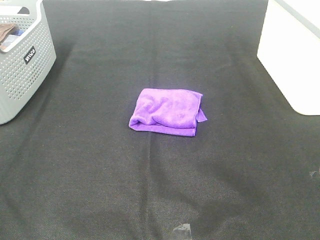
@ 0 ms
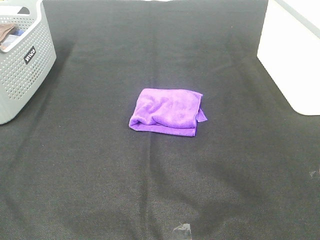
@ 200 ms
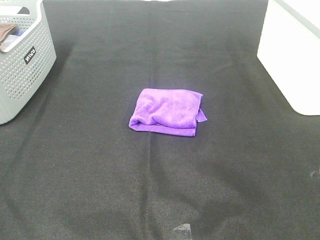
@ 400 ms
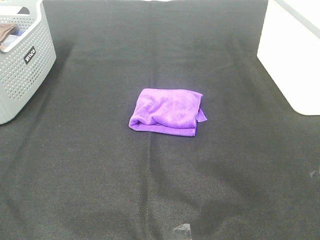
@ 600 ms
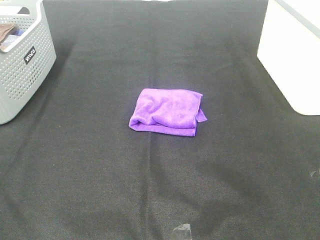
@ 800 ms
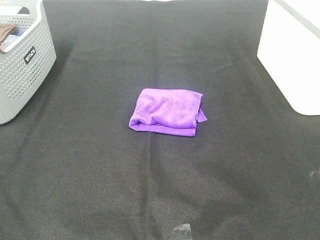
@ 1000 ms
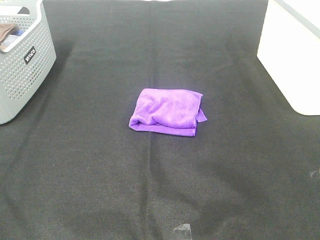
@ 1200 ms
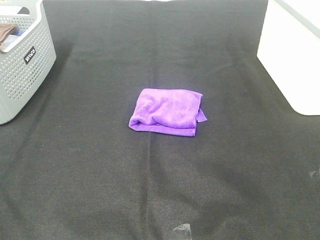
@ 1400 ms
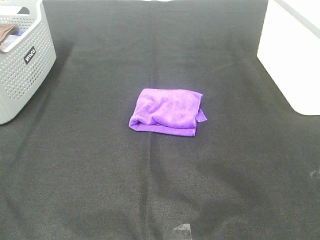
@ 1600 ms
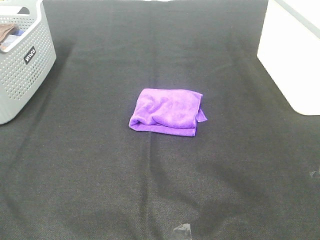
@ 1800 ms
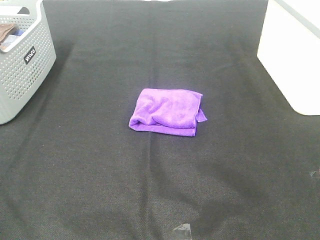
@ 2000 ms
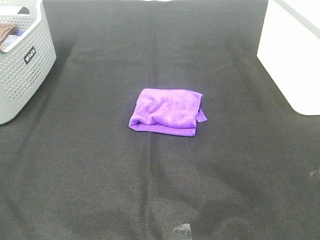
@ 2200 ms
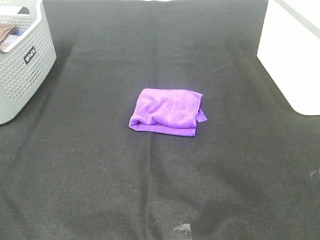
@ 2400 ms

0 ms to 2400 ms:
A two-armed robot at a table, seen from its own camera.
Task of the whole recording: Fold towels.
1200 ms to 2400 ms: Both grippers stay put.

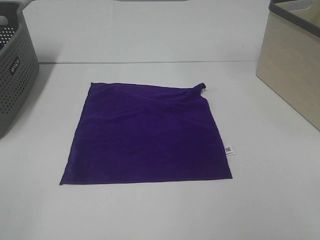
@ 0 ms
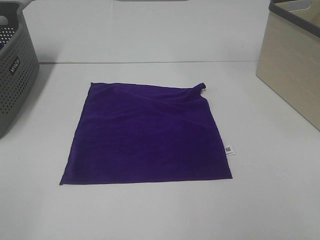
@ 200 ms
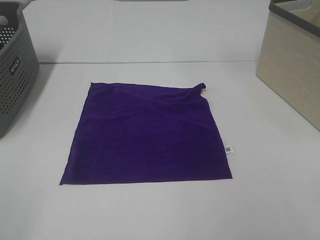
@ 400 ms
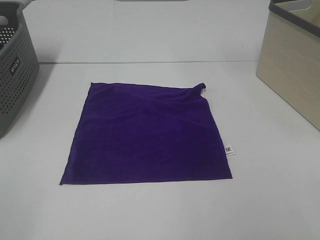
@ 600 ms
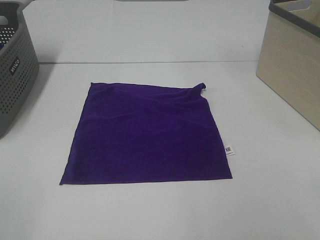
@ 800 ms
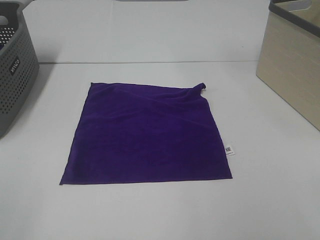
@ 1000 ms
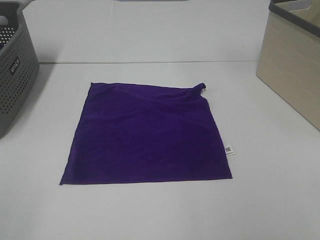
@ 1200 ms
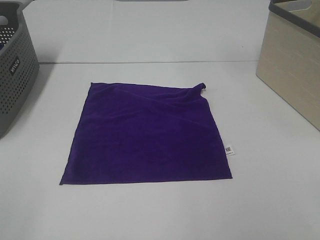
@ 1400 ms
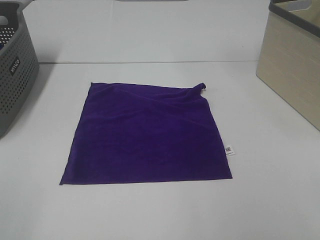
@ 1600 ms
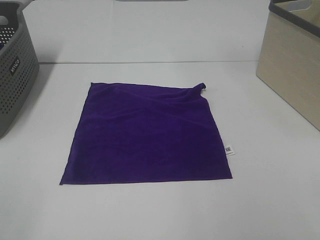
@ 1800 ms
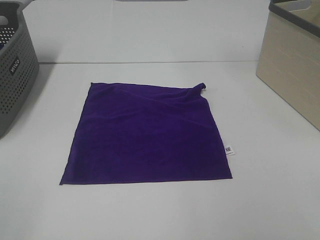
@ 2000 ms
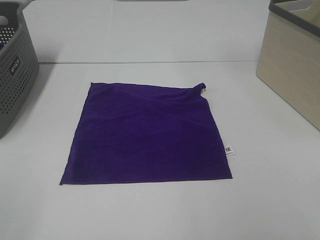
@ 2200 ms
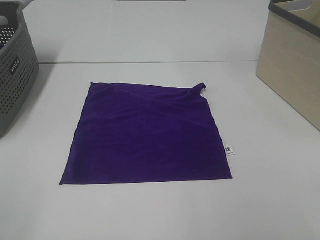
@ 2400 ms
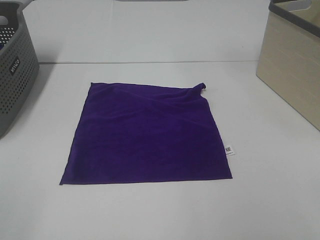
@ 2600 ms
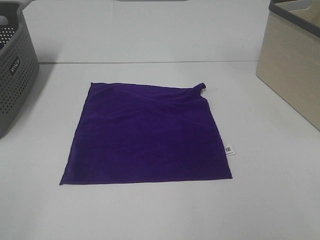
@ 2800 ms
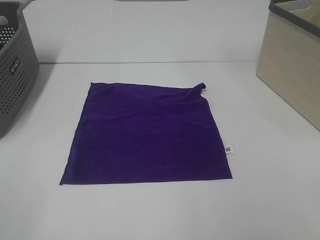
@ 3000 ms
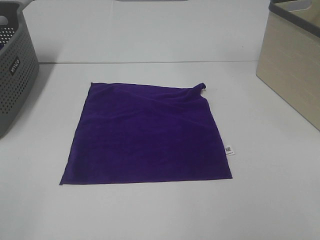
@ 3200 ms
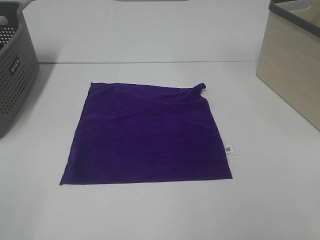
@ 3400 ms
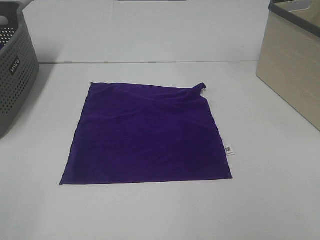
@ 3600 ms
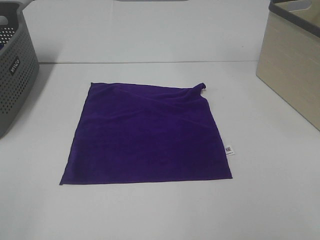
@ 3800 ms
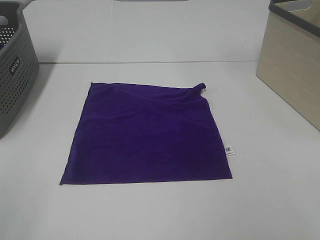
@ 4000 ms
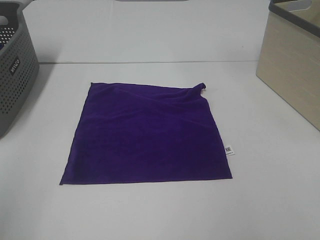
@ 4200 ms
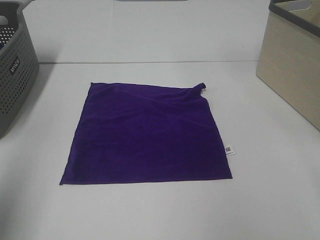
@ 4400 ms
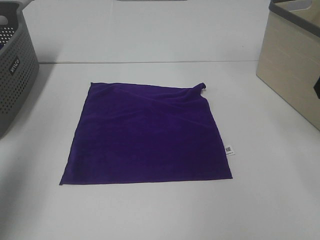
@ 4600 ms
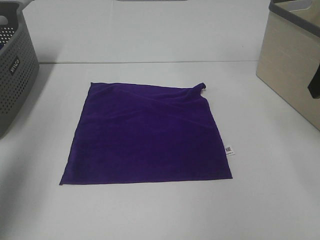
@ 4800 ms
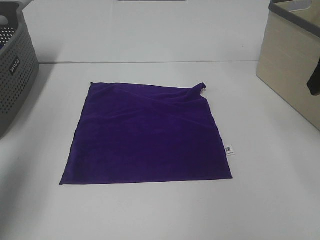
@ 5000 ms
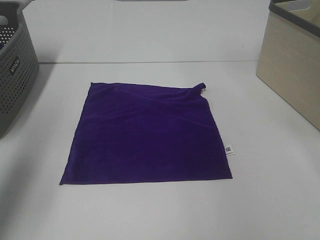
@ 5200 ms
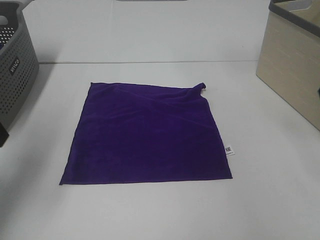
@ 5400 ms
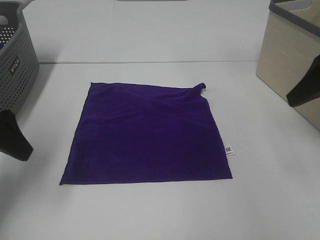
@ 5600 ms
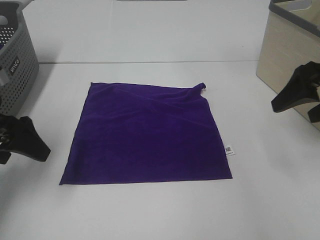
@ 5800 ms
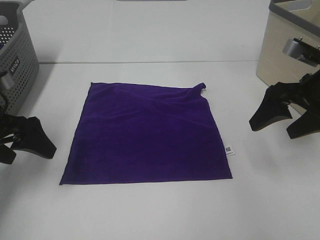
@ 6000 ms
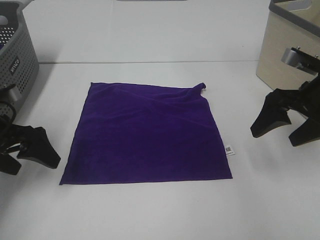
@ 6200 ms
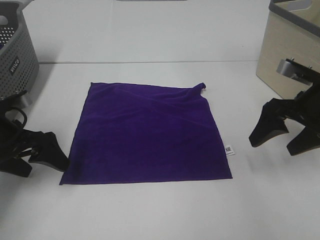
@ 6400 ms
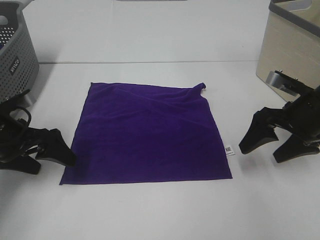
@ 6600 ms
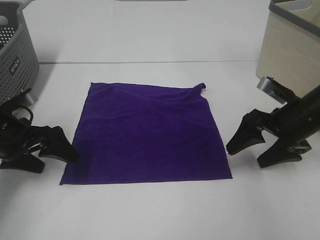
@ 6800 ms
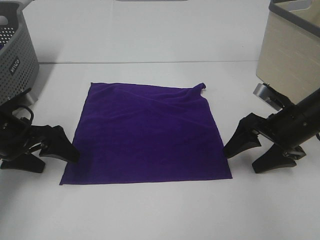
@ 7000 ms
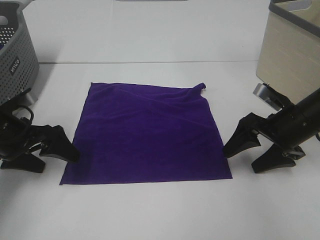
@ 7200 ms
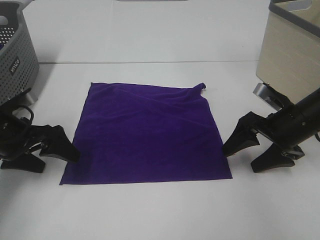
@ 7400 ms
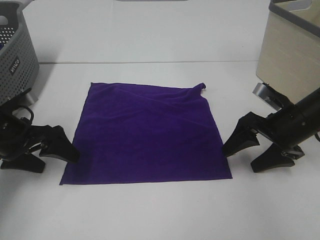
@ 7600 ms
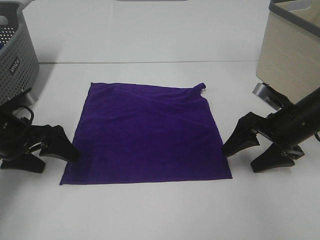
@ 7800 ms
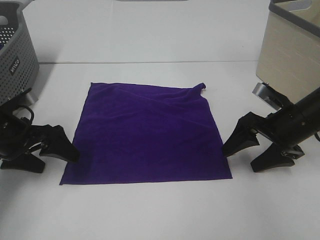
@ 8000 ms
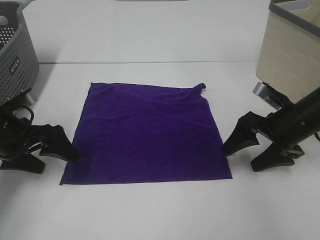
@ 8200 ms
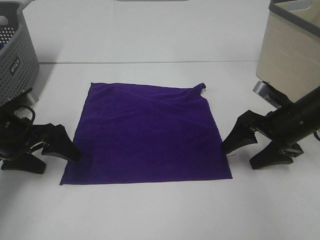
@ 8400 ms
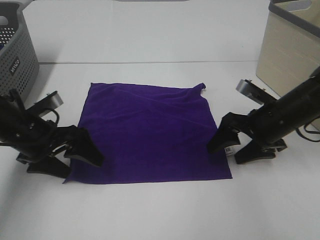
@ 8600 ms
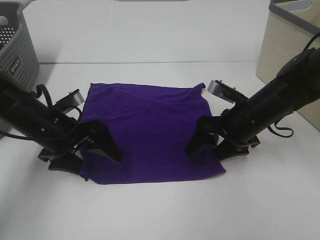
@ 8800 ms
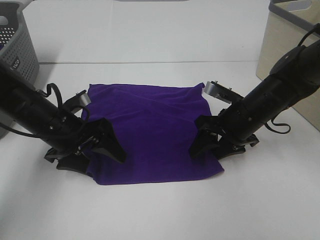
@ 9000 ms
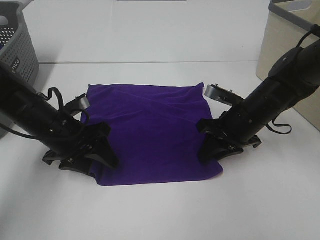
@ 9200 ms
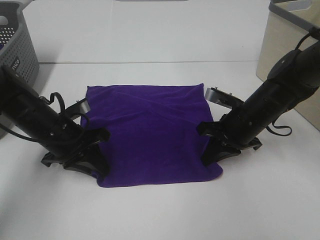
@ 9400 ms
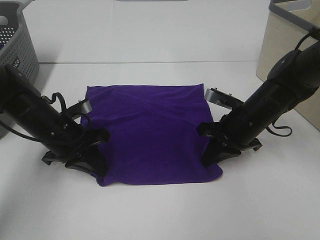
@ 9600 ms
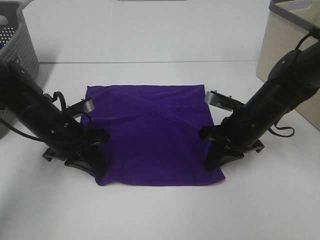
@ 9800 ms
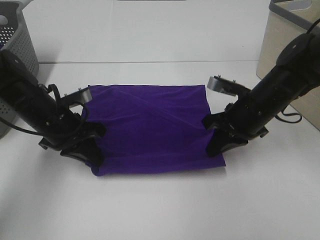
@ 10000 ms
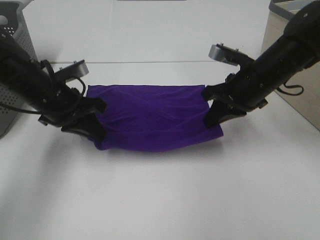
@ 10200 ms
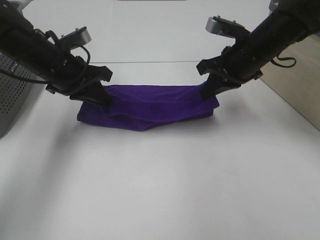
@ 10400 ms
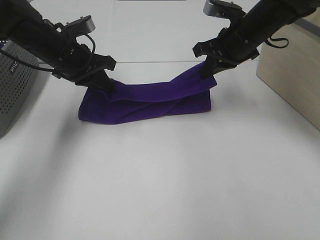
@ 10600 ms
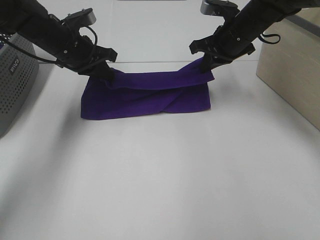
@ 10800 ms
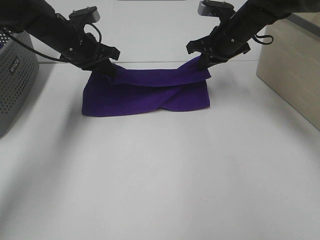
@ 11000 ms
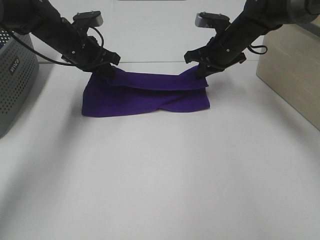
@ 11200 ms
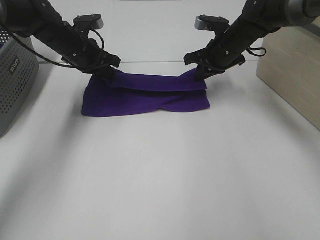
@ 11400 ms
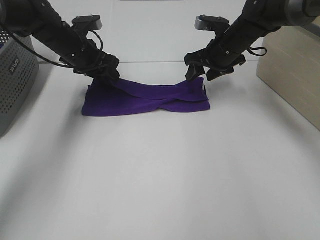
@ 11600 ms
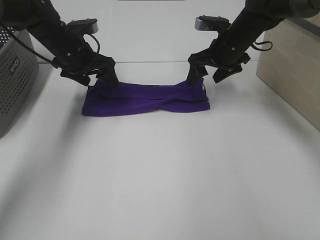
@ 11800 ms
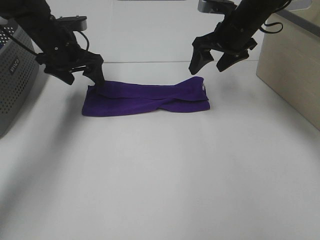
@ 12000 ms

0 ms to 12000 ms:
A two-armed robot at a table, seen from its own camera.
Task of the whole recording: Fold towels.
Step, 0 ms to 9600 ms: Left hand: grab the bottom left corner of purple towel.
Step, 0 ms to 9600 ms: Right hand: grab the bottom right corner of purple towel.
Step, 9800 ms to 11400 ms: Left hand: fold the purple towel up.
Step, 9800 ms to 11400 ms: Right hand: fold the purple towel up.
0 ms to 3000 ms: Both grippers stay put.
3000 ms to 4400 ms: The left gripper goes about 15 cm forward and upward.
4400 ms to 6000 ms: The two grippers go about 20 cm downward and forward.
6000 ms to 7600 ms: The right gripper is displaced downward by approximately 10 cm; the left gripper shifts roughly 5 cm downward.
7600 ms to 9000 ms: The left gripper heads to the right, covering about 10 cm. Meanwhile the right gripper moves to the left, about 10 cm.
9000 ms to 10400 ms: Both grippers move upward and forward, roughly 10 cm. The left gripper closes its fingers. Meanwhile the right gripper closes its fingers.
10400 ms to 12000 ms: Both grippers move forward, some 10 cm. The right gripper opens its fingers. Meanwhile the left gripper opens up.

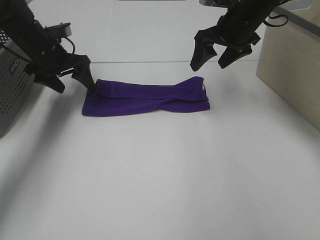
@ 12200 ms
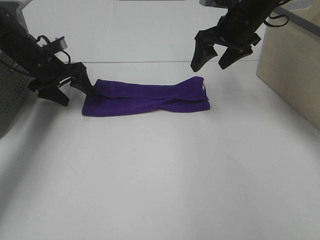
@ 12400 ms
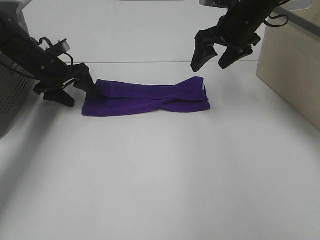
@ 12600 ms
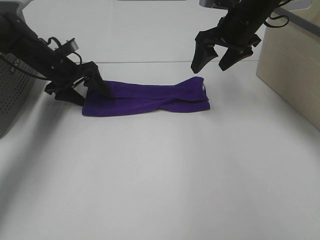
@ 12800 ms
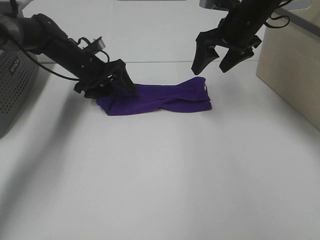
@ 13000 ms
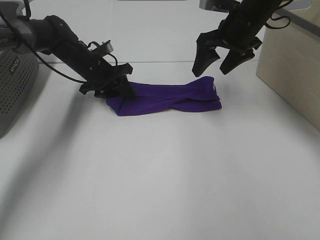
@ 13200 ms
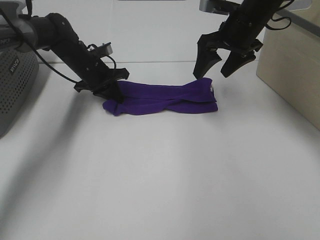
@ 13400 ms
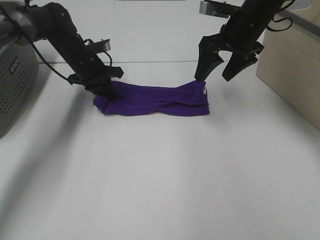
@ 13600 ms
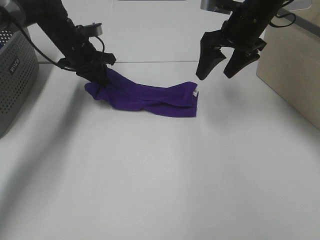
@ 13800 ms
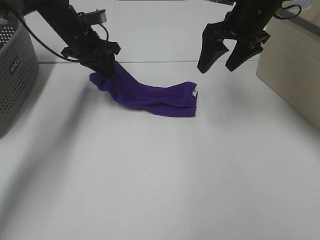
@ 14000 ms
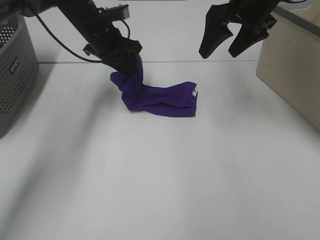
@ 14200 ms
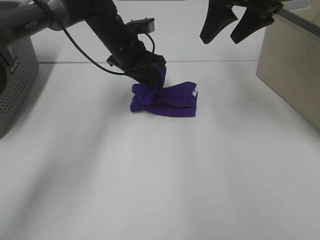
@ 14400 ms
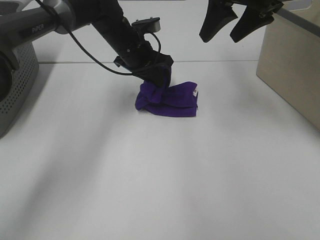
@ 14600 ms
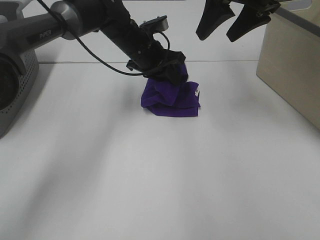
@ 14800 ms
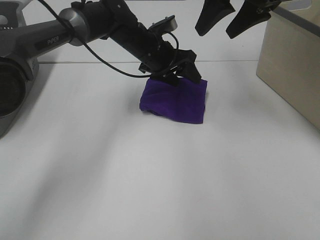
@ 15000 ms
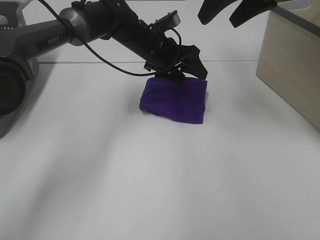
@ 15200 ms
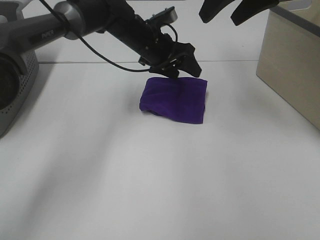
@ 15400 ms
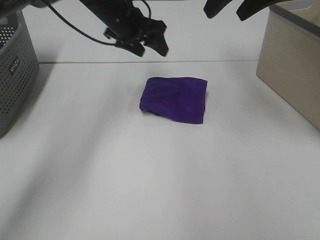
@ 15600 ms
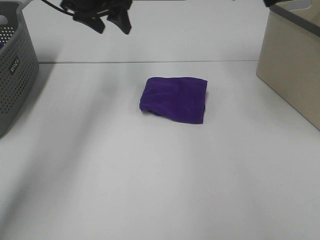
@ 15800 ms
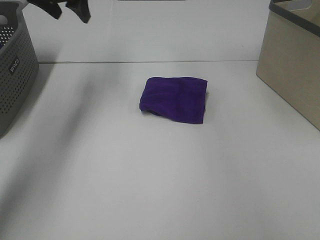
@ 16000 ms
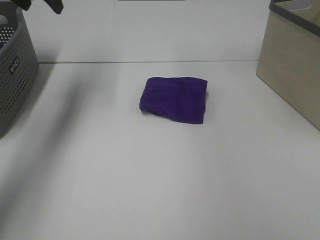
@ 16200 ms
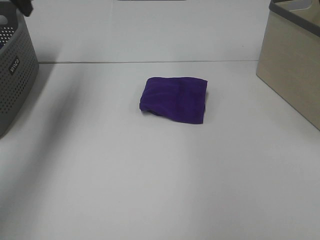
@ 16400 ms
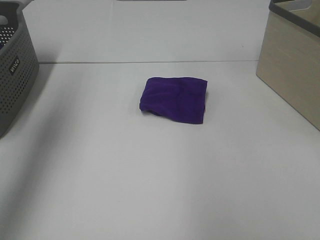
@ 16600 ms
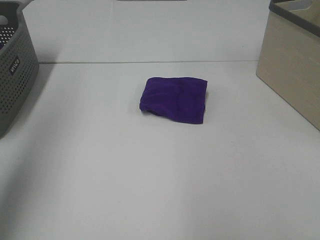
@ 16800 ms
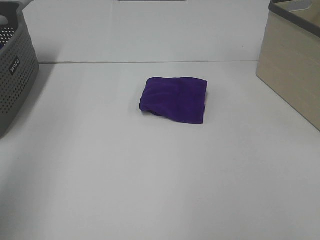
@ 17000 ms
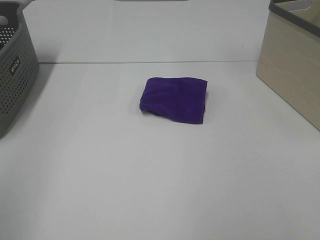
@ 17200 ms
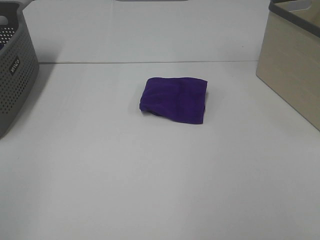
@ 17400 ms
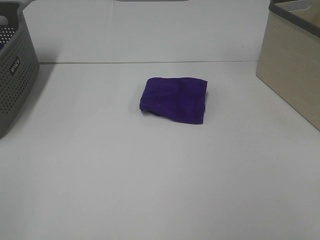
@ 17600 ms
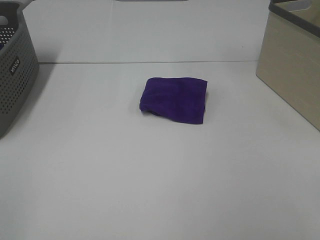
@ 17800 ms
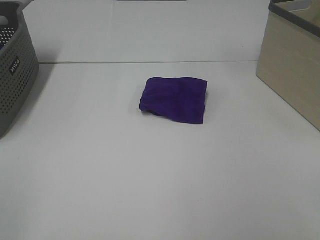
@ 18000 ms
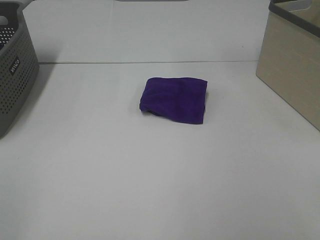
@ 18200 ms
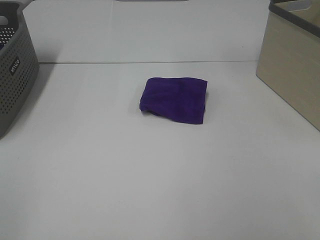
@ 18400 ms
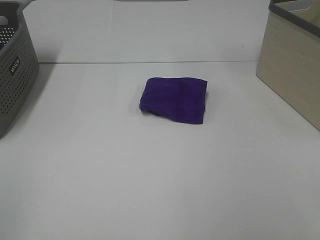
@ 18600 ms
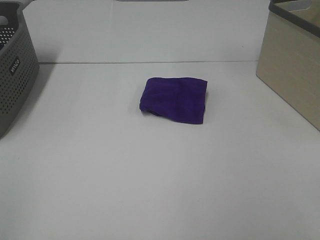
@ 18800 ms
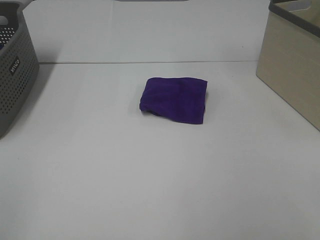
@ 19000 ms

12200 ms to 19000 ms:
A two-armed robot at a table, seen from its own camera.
Task of the whole recording: Fold towels.
Step, 12200 ms to 14800 ms: Left hand: fold the purple towel from left to right.
12200 ms to 13600 ms: The left gripper goes some 5 cm to the right, and closes.
13600 ms to 15000 ms: The right gripper heads upward, covering approximately 10 cm; the left gripper goes about 15 cm to the right, and opens its fingers.
15000 ms to 16200 ms: The right gripper moves to the right and upward, approximately 15 cm; the left gripper goes roughly 30 cm to the left and upward.
16200 ms to 17600 ms: The left gripper goes roughly 50 cm backward.
